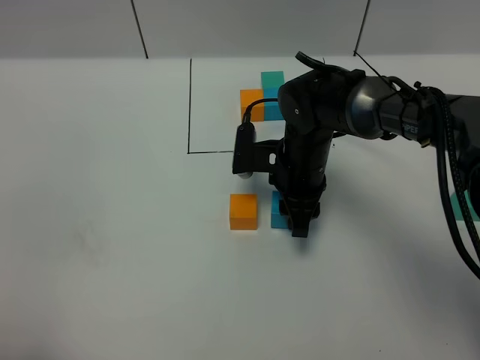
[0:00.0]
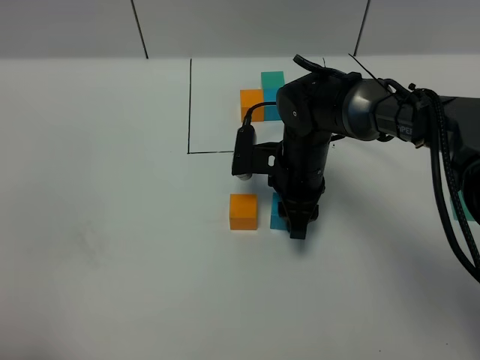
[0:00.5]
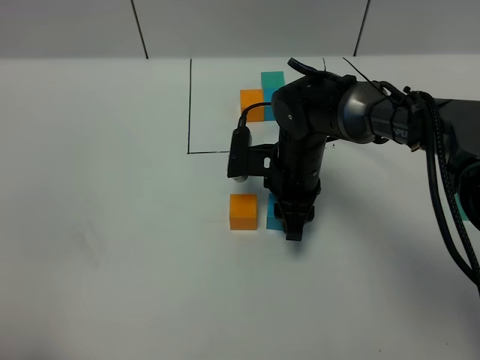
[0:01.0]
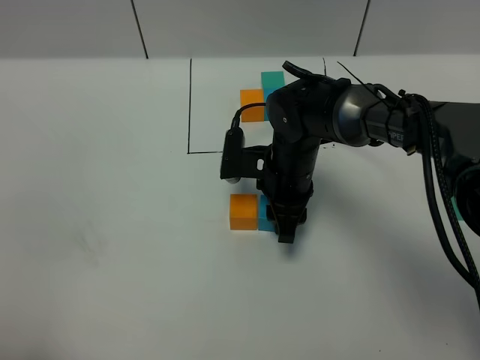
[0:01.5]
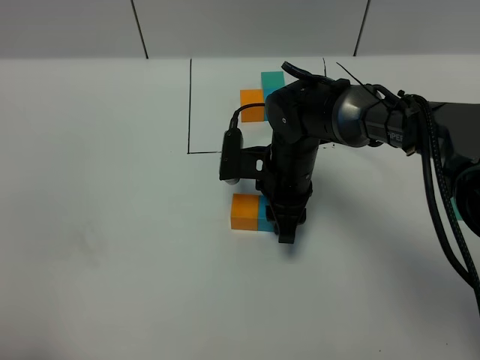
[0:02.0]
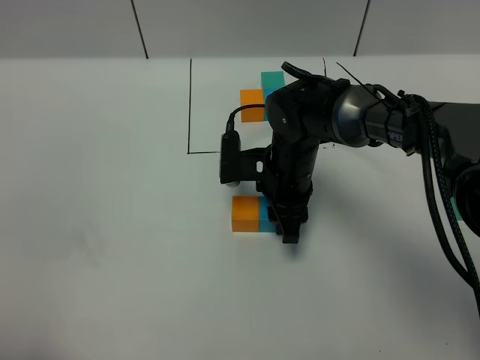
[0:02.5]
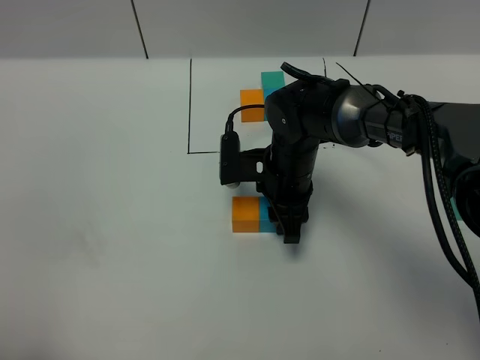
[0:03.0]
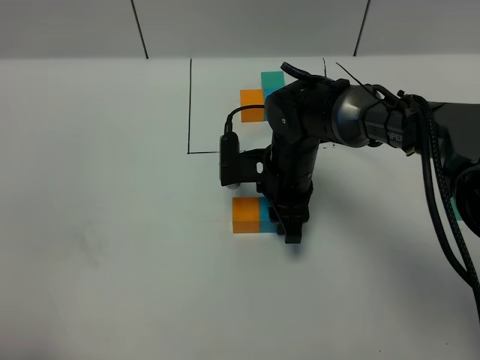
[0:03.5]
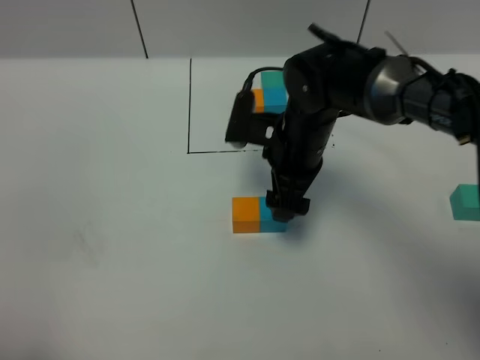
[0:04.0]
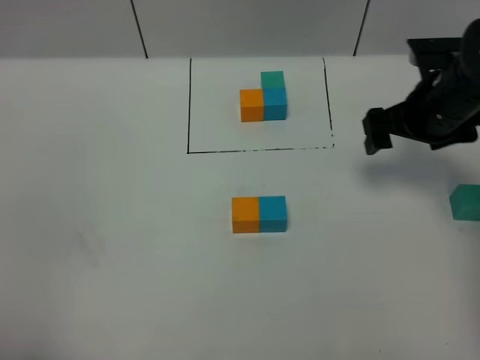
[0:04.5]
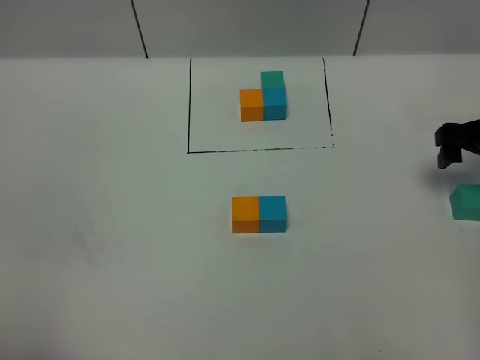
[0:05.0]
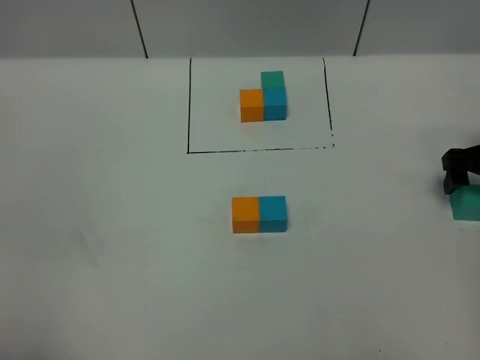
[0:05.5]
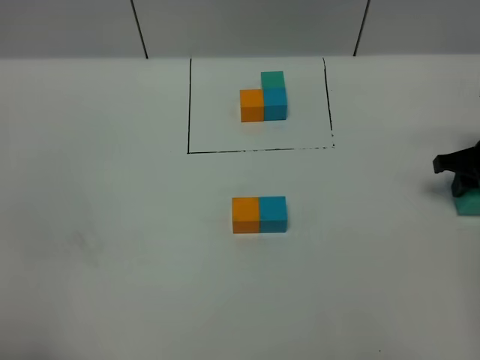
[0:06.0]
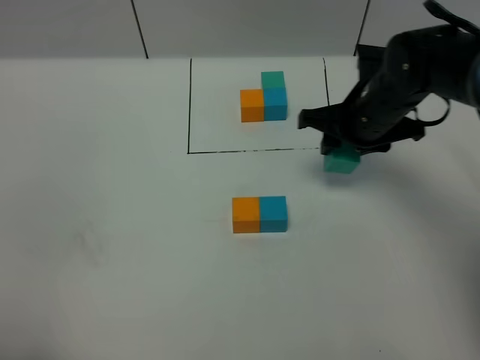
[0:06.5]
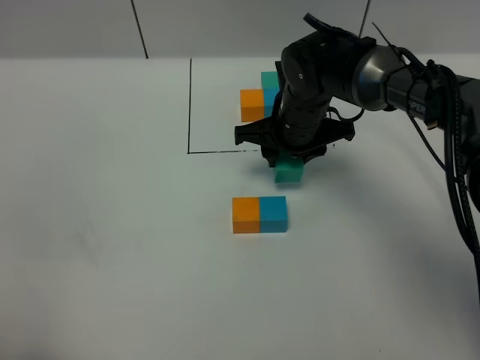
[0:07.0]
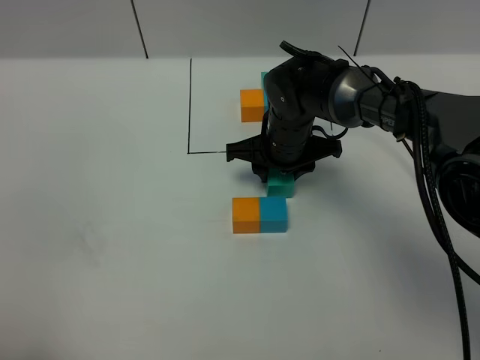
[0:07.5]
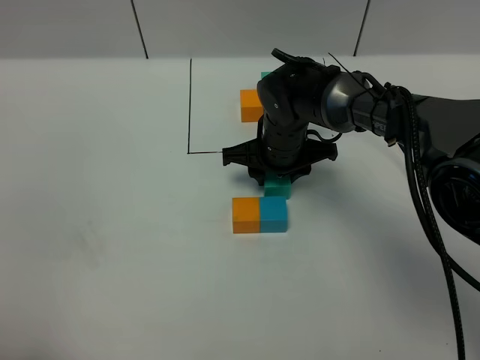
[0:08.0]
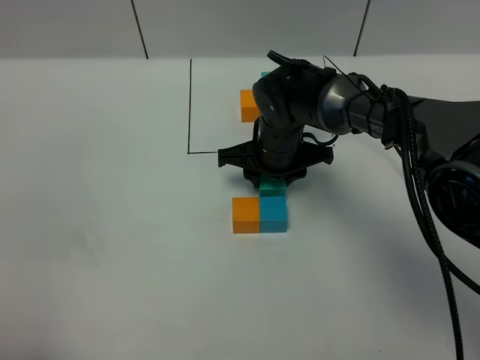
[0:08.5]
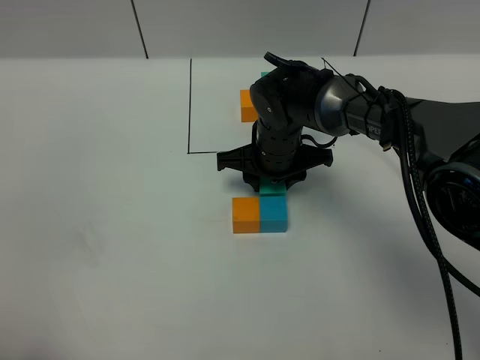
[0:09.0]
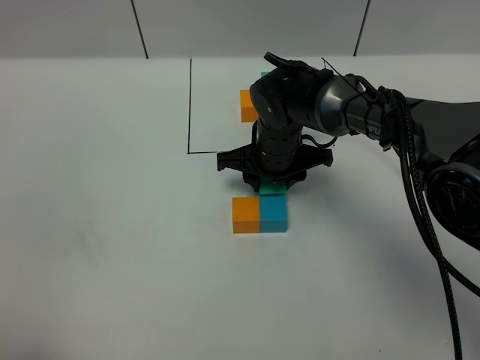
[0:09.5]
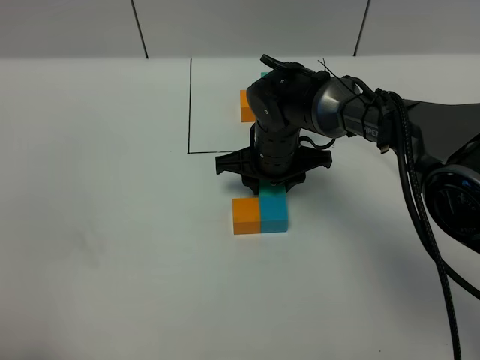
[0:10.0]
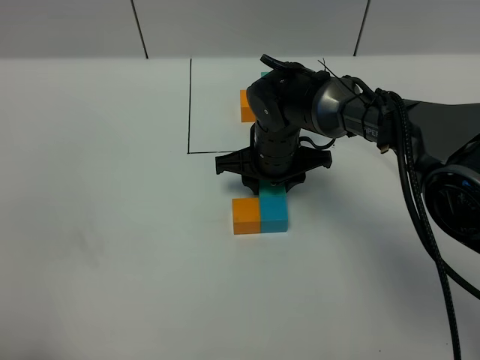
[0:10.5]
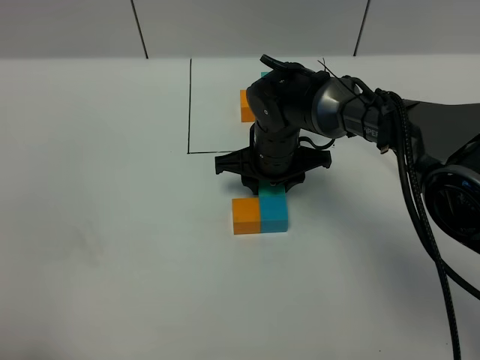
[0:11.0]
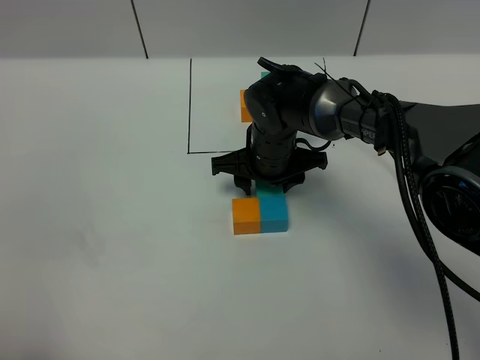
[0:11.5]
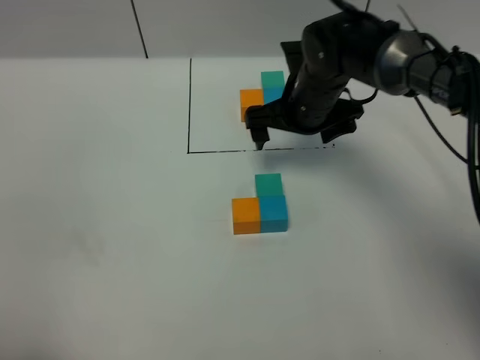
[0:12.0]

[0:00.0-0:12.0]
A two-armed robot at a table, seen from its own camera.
Task of the whole recording: According to the building block template in front, assemble the scattered blocks together.
Step, 0:00.0 to 0:02.5: Put the blue build block on the right of the orange build block.
Step, 0:03.0 to 0:11.5: Put the green build block on the front of the blue build block.
0:00.0 to 0:02.0: There are only small adjustments of the grippers.
0:02.0 to 0:04.0: The right gripper heads upward, covering roughly 5 cm, and opens up.
0:04.0 to 0:06.0: The right gripper travels to the right by approximately 25 cm, and closes.
0:06.0 to 0:08.0: The right gripper is displaced to the left by about 30 cm.
0:08.0 to 0:10.0: There are only small adjustments of the grippers.
0:10.0 to 0:12.0: The right gripper goes approximately 10 cm to the right and upward, and opens its fingers.

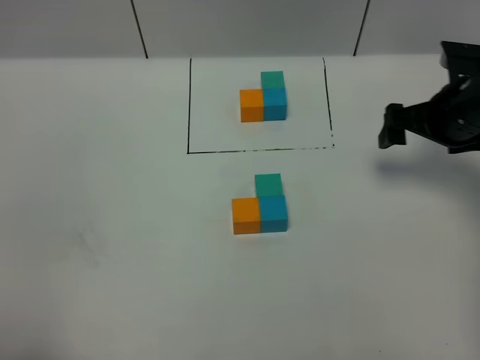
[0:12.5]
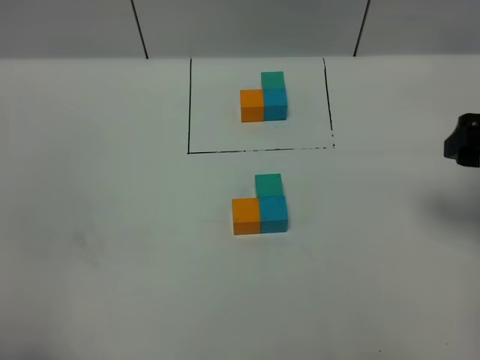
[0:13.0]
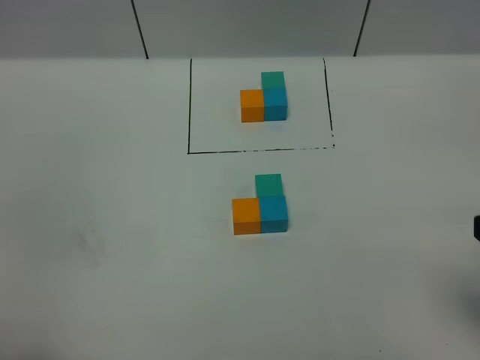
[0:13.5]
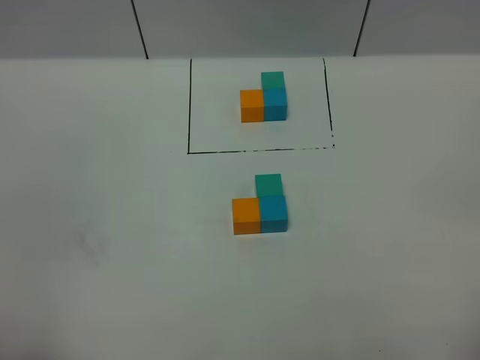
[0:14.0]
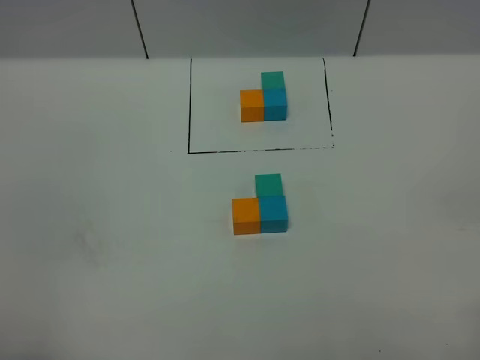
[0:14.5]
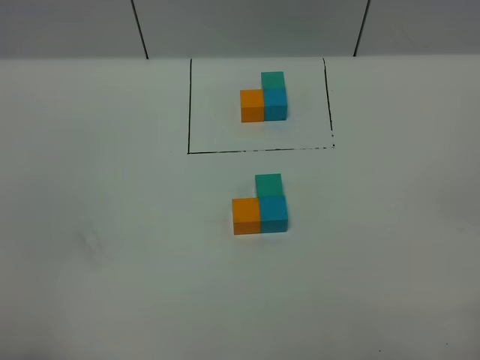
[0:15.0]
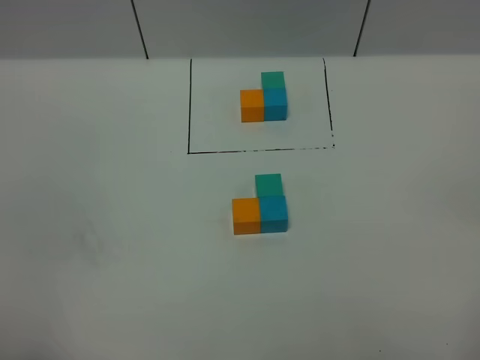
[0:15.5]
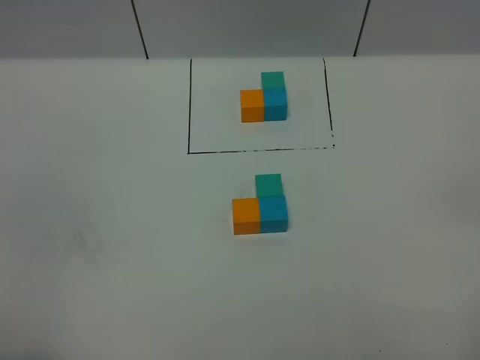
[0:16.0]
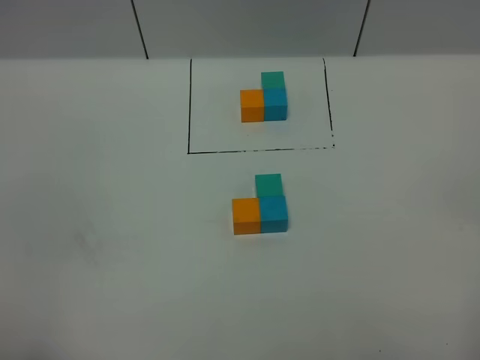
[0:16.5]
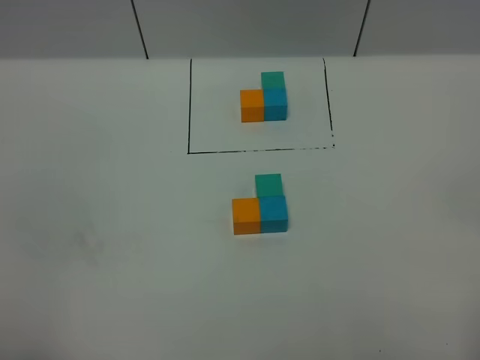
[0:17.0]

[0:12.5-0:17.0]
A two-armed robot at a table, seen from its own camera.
Task of the whole recording: According to the building block template in front, assemble the scattered blocks together.
0:12.5 to 0:14.5: The right gripper moves backward, approximately 35 cm.

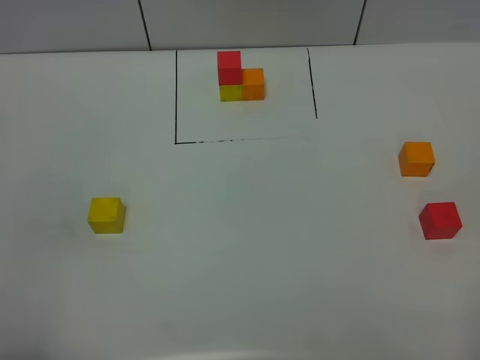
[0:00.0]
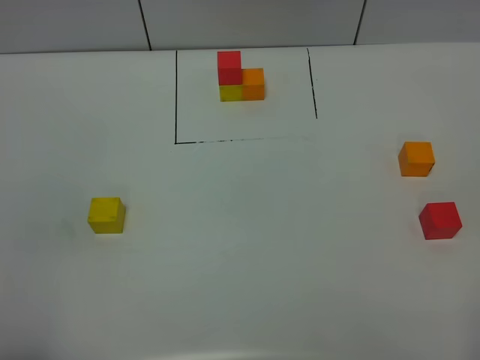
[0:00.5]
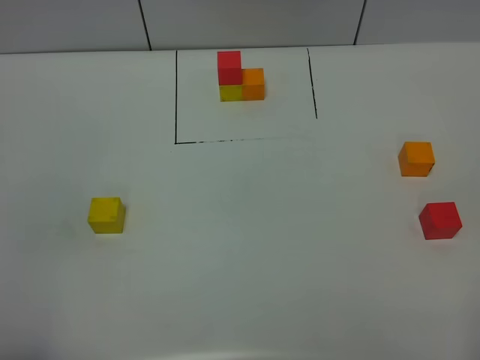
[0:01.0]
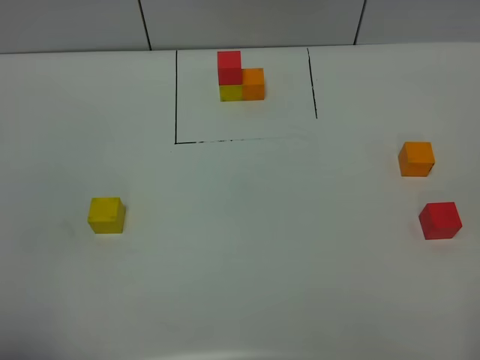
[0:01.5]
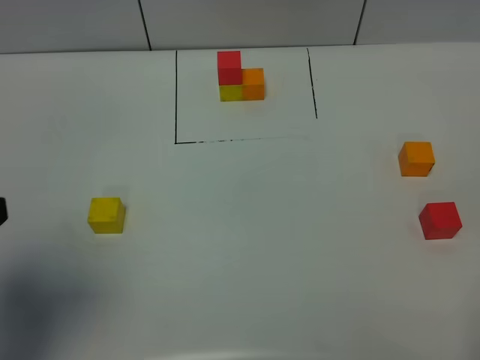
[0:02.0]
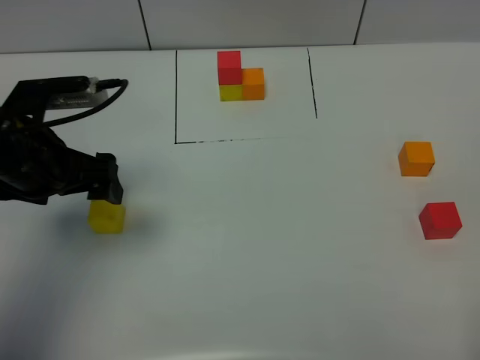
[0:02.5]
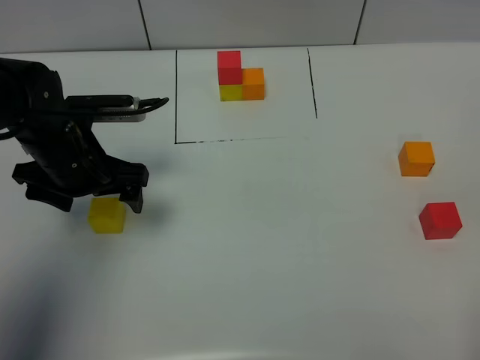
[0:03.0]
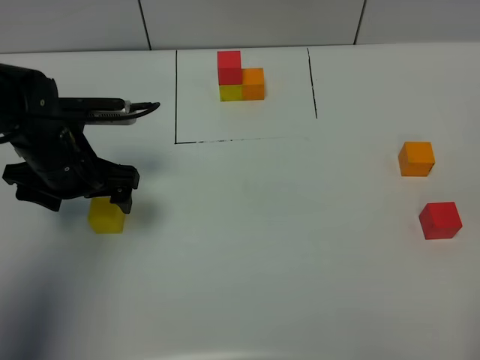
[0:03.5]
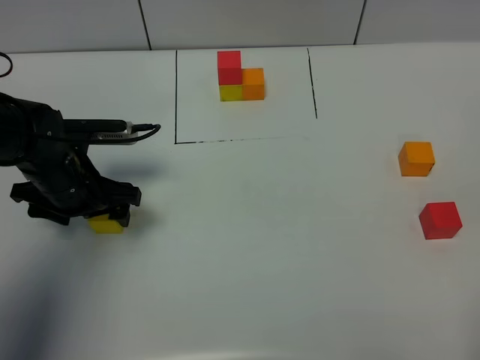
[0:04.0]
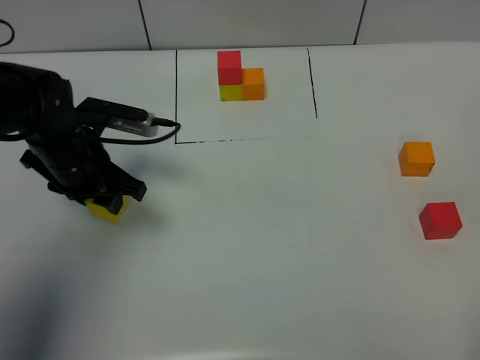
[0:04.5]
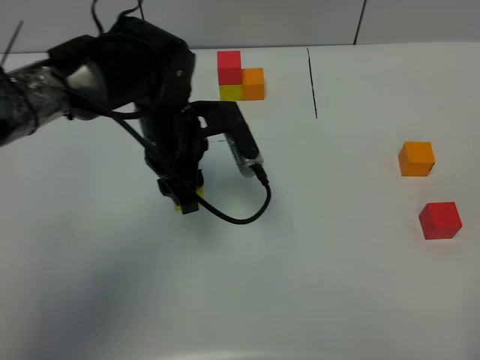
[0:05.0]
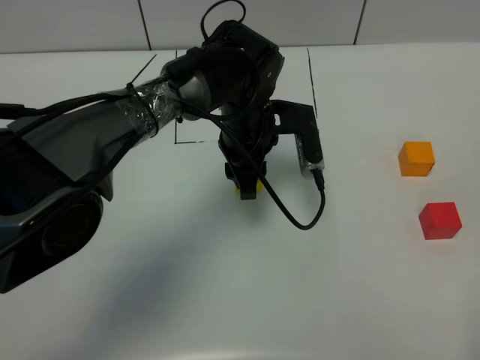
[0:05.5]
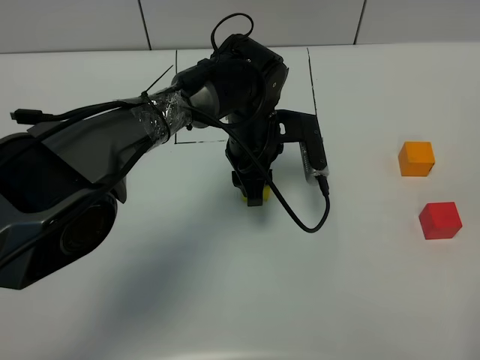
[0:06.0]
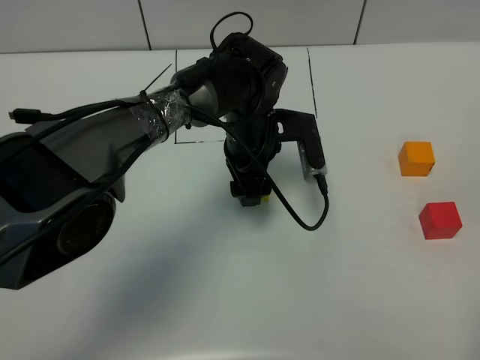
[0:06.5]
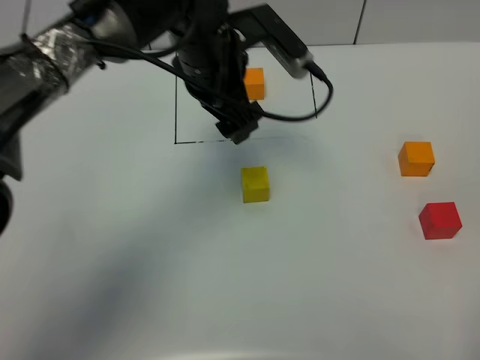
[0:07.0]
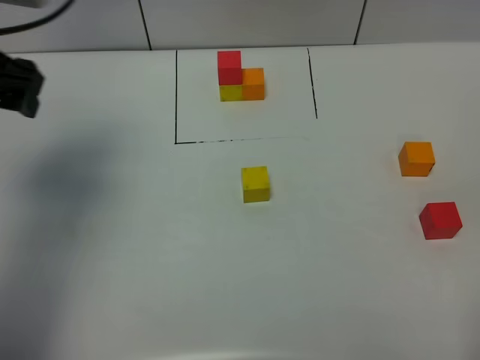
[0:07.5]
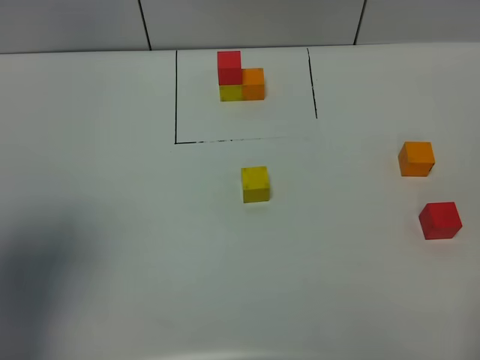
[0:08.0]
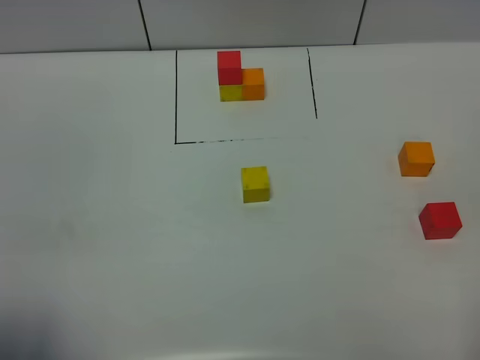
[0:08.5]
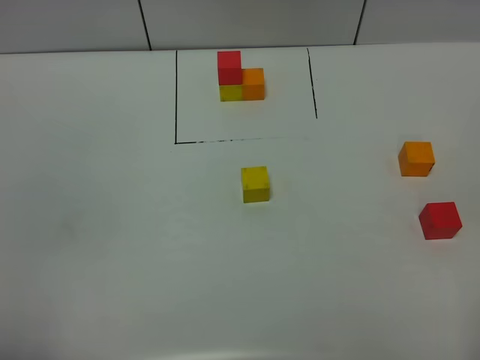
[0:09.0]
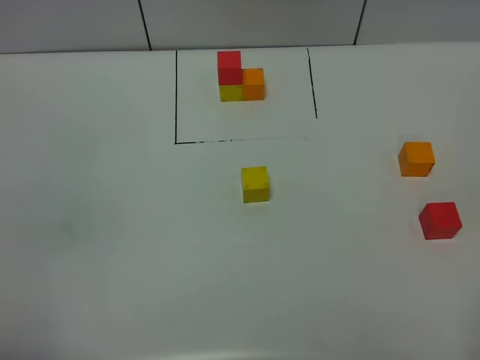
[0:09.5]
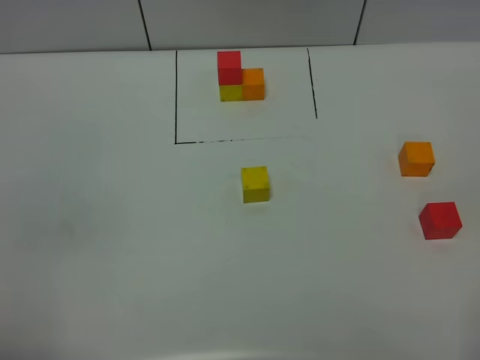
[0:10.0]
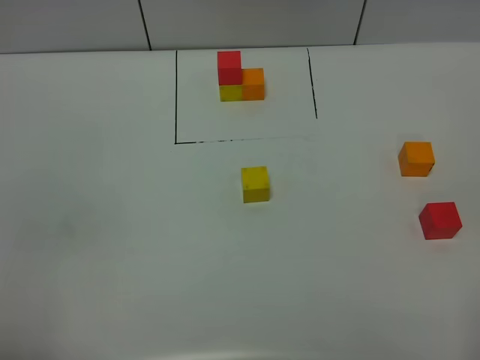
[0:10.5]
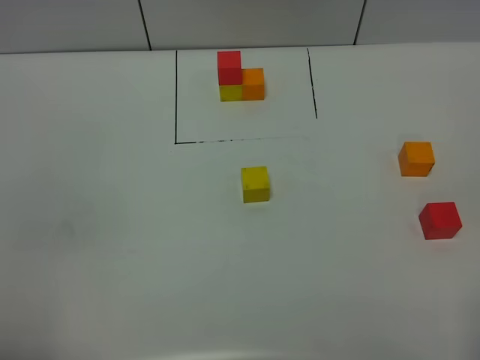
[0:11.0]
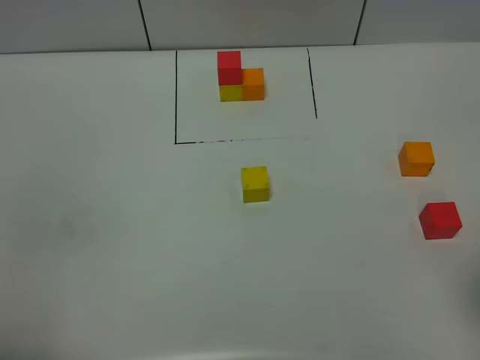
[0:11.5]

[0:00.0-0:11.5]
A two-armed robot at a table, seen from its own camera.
Task of the whole recording: According to the building block template in front, assemble the scattered blocks together.
Step, 0:00.0 to 0:06.0: Put the yellow build block in the center of the table.
0:00.0 to 0:02.0: The left gripper moves forward, approximately 15 cm, and opens up.
0:02.0 to 0:04.0: The left gripper shifts some 25 cm downward and forward.
0:04.0 to 0:06.0: The left gripper travels to the right by some 25 cm, and closes its fingers.
0:06.0 to 0:07.5: The left gripper shifts approximately 35 cm to the left and upward, and opens its fingers.
0:07.5 to 0:09.5: The left gripper travels backward by about 30 cm.
